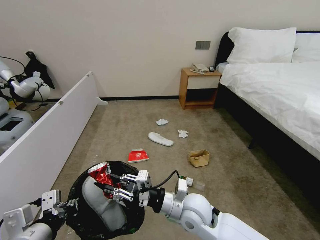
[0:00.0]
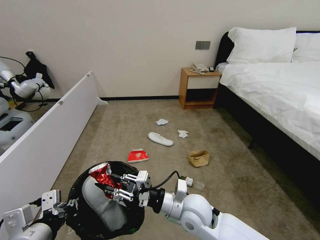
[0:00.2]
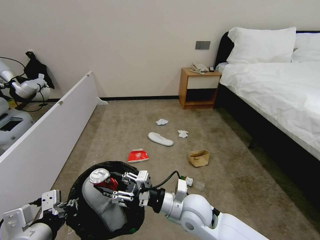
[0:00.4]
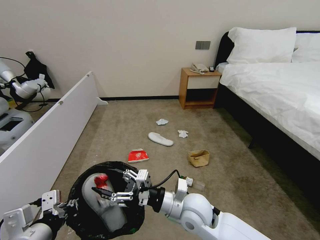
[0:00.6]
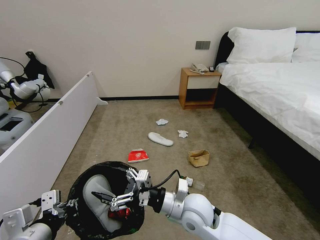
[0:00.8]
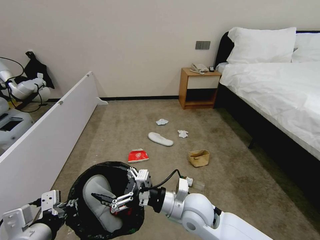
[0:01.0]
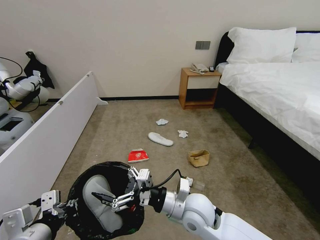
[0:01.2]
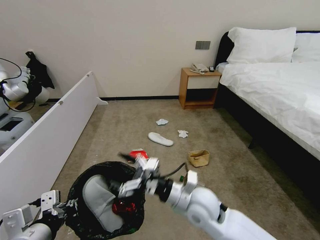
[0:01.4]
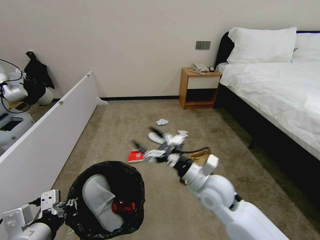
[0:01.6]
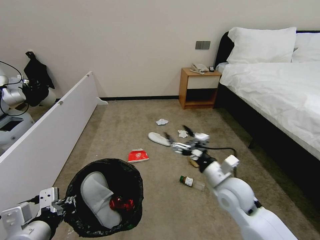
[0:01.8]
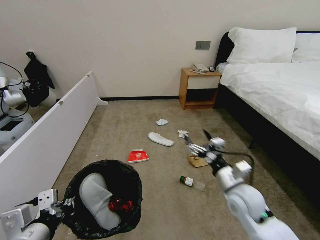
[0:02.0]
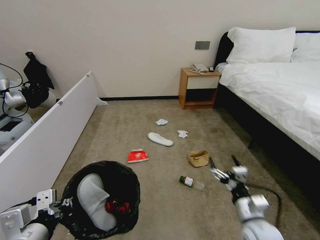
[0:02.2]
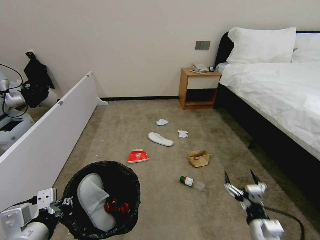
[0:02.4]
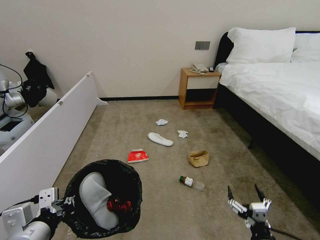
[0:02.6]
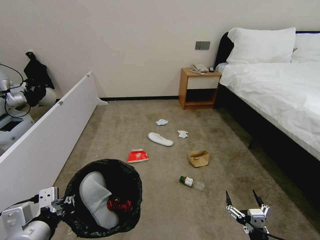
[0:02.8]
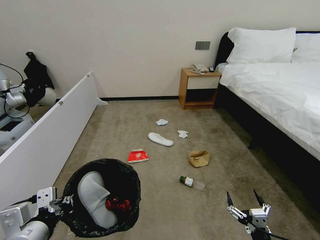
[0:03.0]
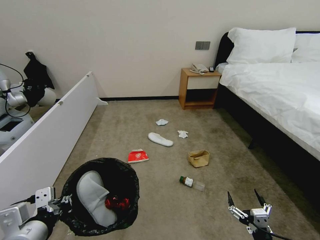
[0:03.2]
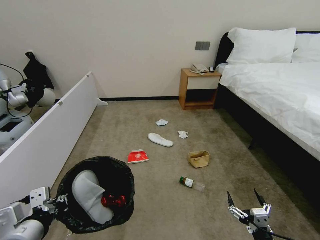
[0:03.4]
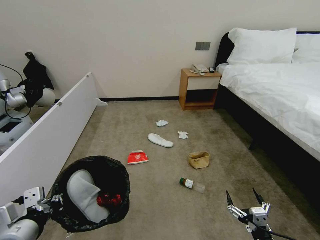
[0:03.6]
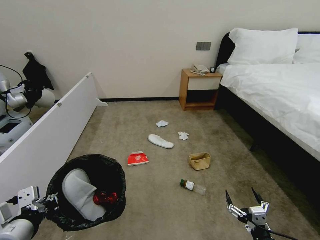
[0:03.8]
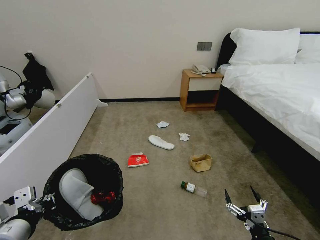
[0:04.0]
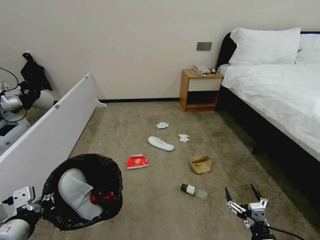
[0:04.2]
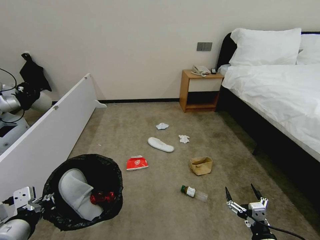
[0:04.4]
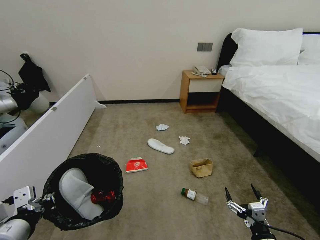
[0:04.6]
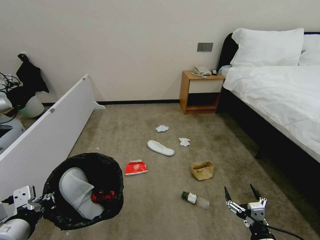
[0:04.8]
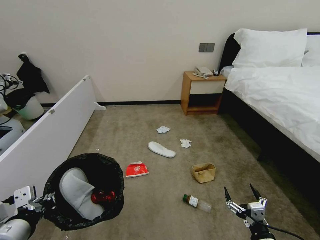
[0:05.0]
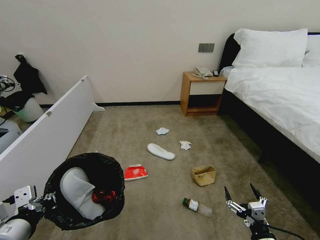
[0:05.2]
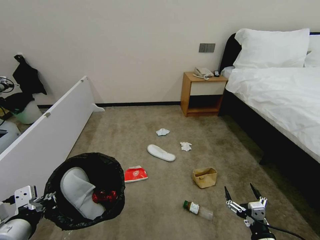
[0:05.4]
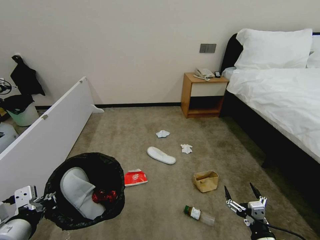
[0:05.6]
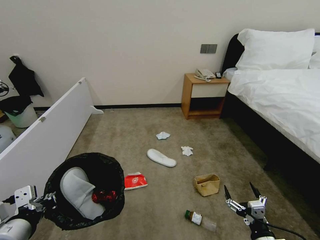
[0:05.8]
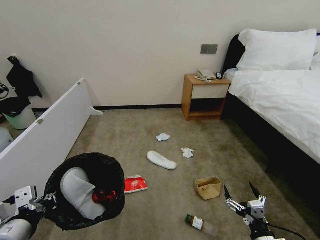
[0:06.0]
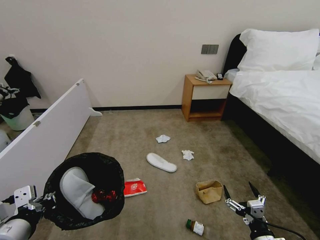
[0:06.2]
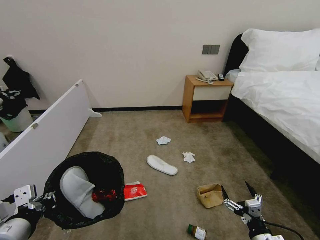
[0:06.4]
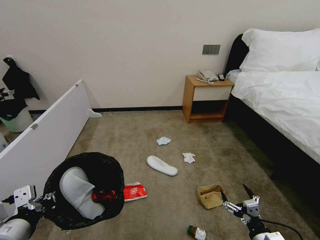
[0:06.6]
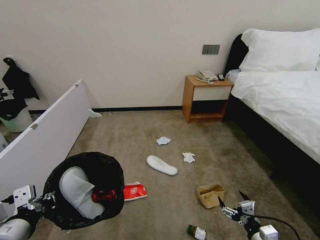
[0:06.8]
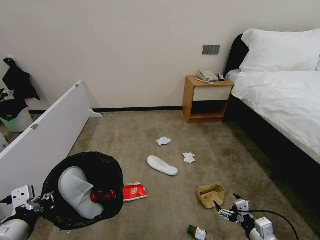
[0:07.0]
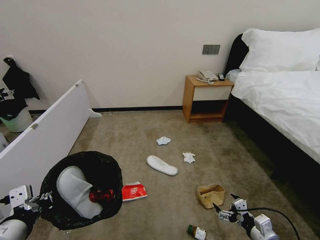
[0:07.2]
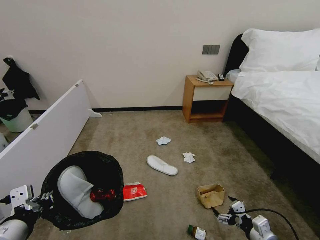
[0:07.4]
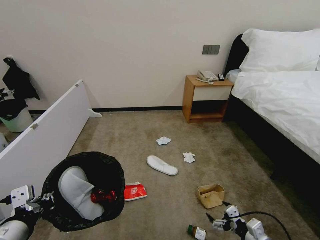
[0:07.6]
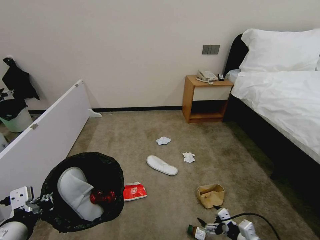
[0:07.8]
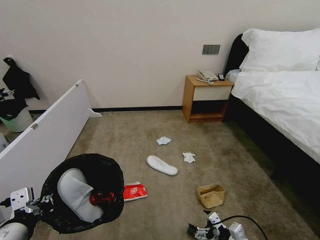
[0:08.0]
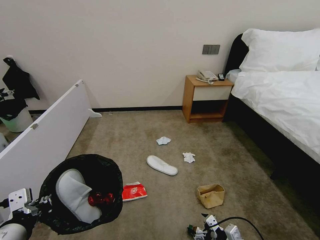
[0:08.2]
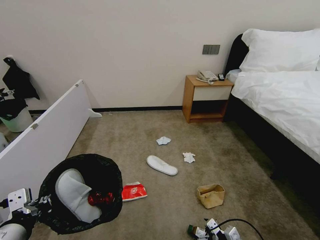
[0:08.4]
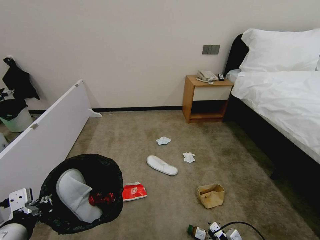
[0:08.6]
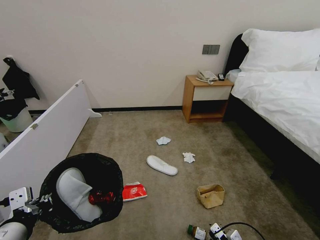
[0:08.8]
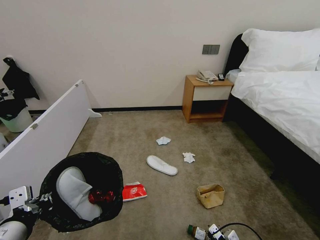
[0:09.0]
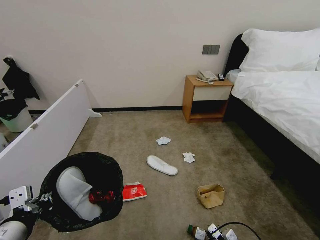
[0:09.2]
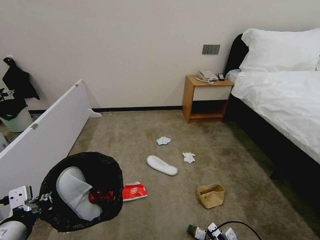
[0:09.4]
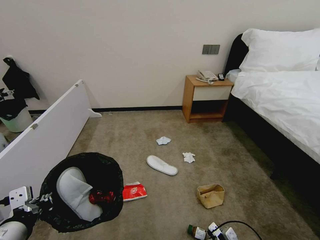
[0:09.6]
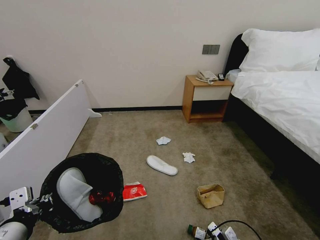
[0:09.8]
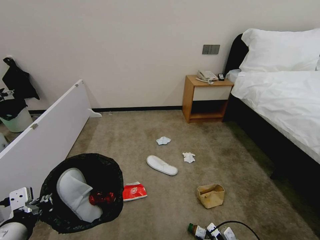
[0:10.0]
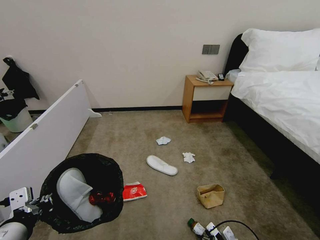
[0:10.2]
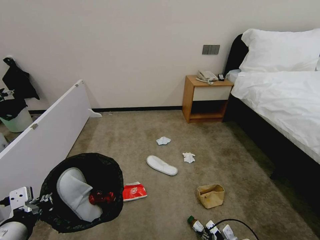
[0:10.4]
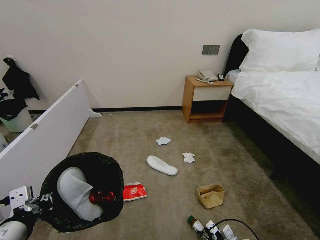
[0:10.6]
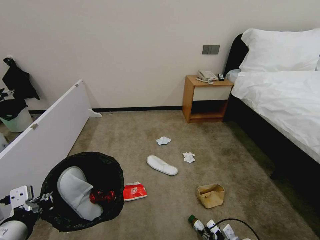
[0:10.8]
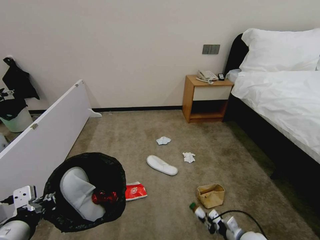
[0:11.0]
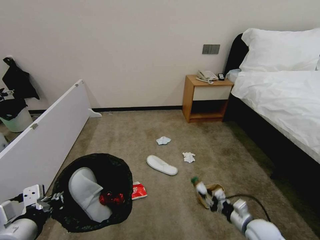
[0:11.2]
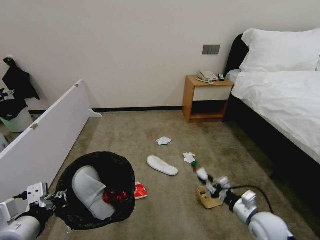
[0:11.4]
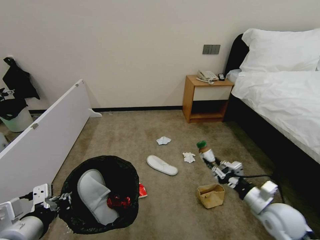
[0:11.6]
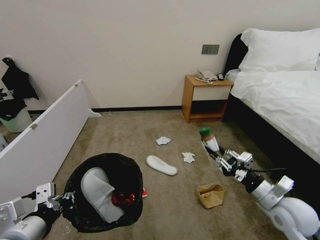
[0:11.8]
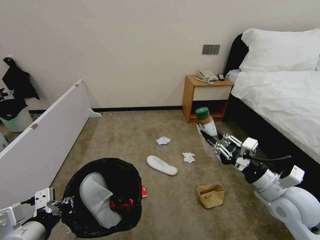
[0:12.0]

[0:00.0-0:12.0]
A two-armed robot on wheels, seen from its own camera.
Task of the whole recording: Pick up the trash bin, then pick up the garbage from the floor and place it into the trash bin.
0:00.0 to 0:01.6: The right gripper is displaced to the right by some 5 cm, and opens its fingers.
0:01.6 to 0:03.0: The right gripper moves backward, downward and to the right, approximately 30 cm.
0:03.0 to 0:04.4: The grippers move only a little.
0:04.4 to 0:06.0: Both grippers stay put.
0:06.0 to 0:07.6: The right gripper changes place by about 5 cm.
0:07.6 to 0:09.0: The right gripper goes some 10 cm downward.
0:09.0 to 0:10.4: The right gripper shifts by approximately 5 cm, and closes.
0:10.4 to 0:12.0: The right gripper travels upward by some 30 cm.

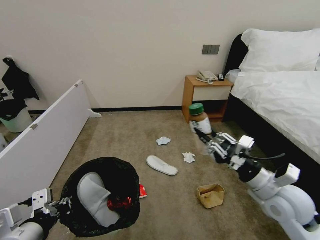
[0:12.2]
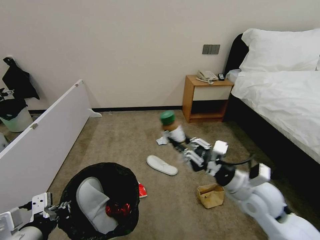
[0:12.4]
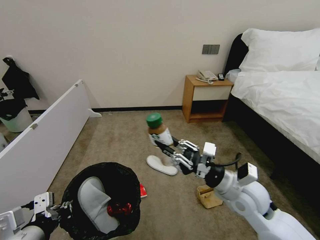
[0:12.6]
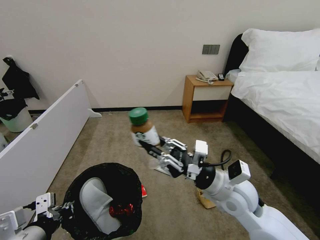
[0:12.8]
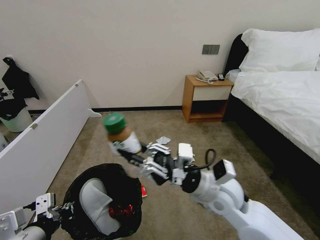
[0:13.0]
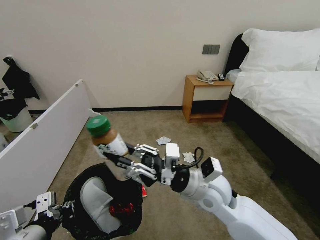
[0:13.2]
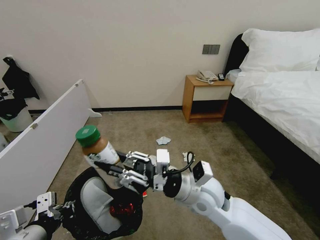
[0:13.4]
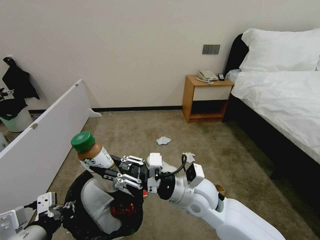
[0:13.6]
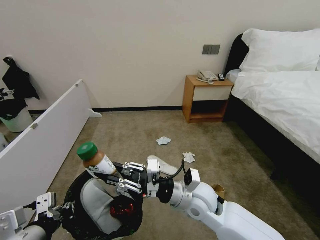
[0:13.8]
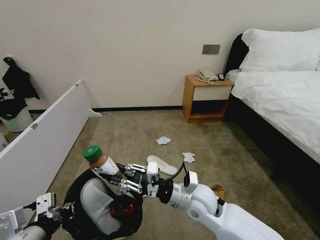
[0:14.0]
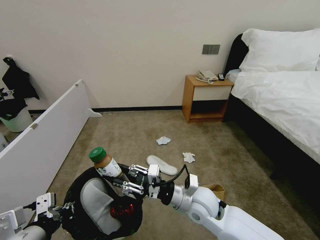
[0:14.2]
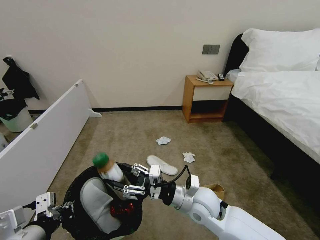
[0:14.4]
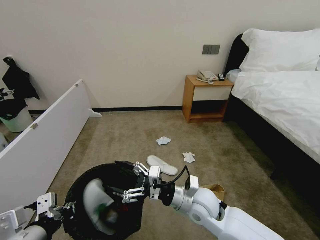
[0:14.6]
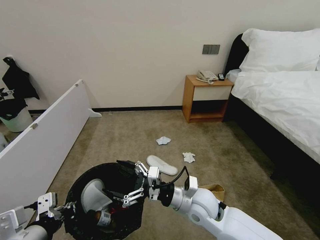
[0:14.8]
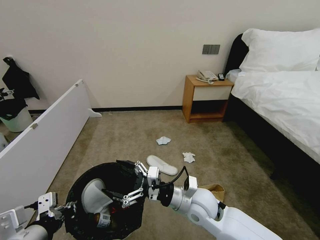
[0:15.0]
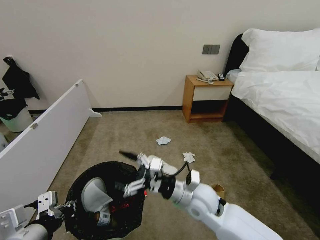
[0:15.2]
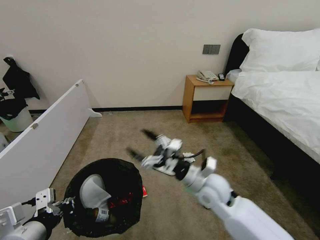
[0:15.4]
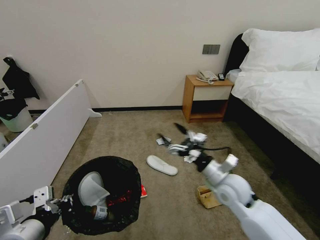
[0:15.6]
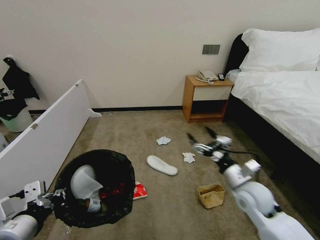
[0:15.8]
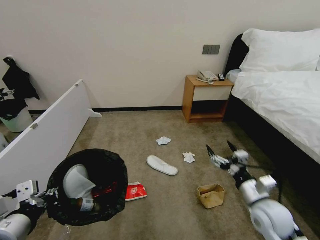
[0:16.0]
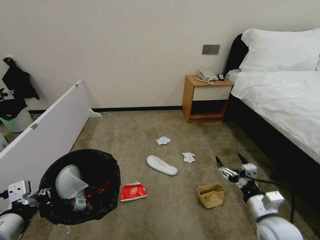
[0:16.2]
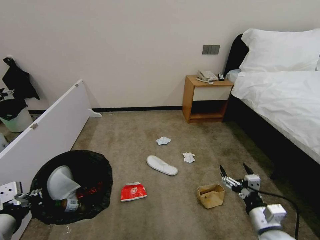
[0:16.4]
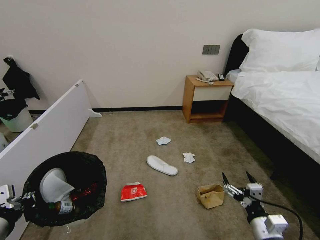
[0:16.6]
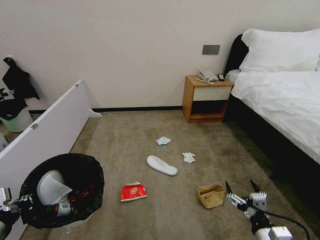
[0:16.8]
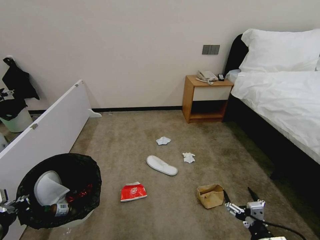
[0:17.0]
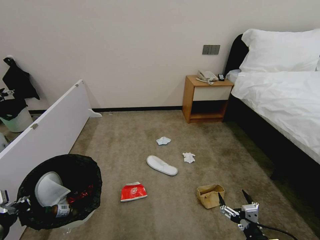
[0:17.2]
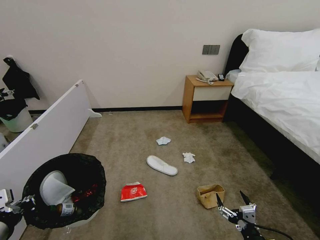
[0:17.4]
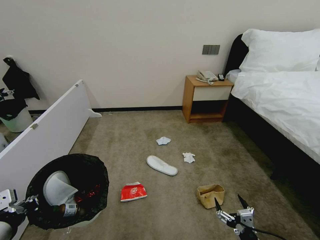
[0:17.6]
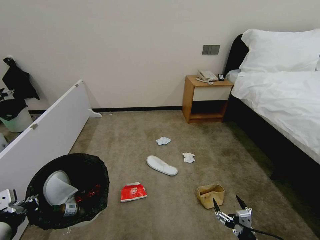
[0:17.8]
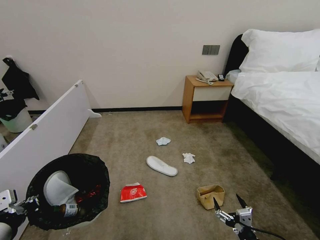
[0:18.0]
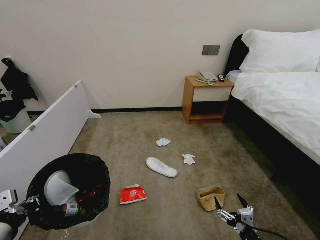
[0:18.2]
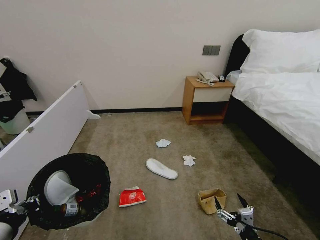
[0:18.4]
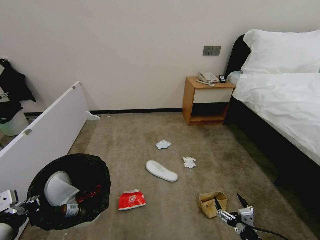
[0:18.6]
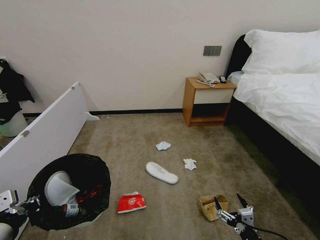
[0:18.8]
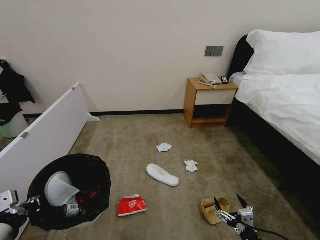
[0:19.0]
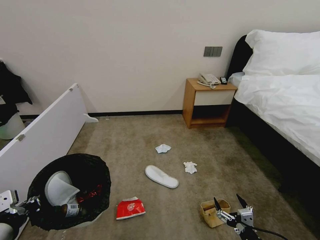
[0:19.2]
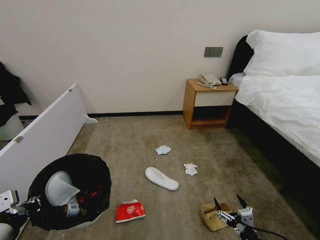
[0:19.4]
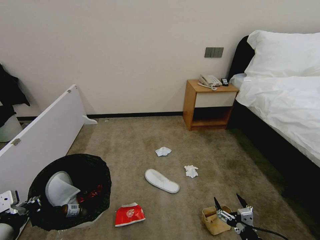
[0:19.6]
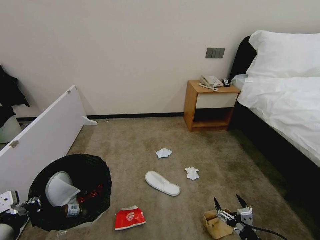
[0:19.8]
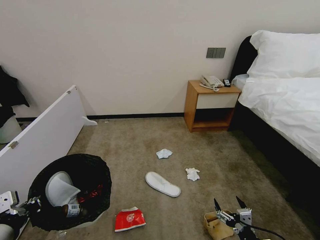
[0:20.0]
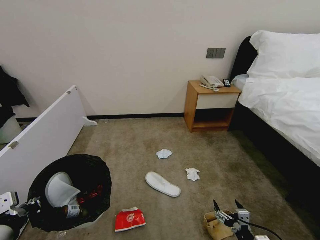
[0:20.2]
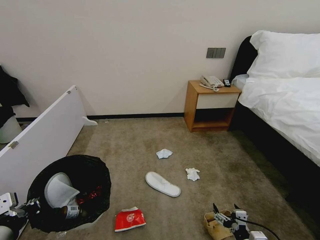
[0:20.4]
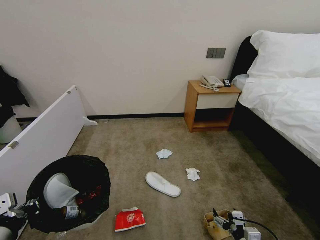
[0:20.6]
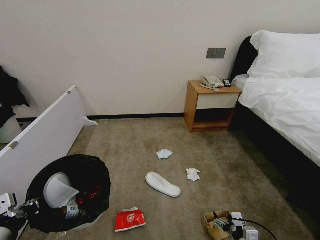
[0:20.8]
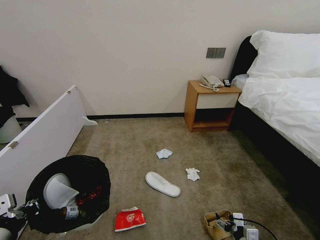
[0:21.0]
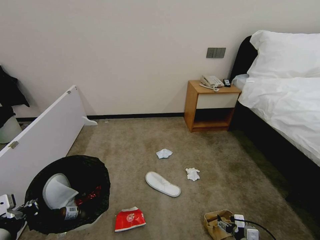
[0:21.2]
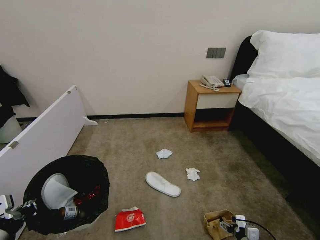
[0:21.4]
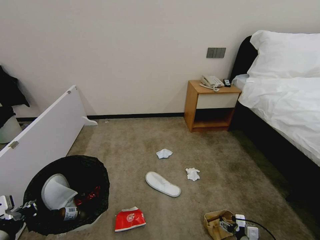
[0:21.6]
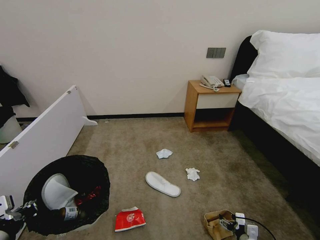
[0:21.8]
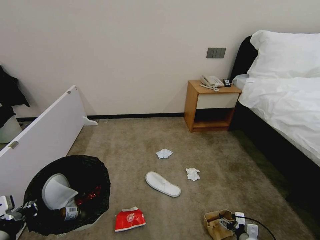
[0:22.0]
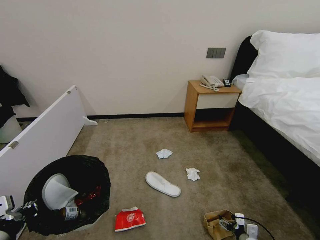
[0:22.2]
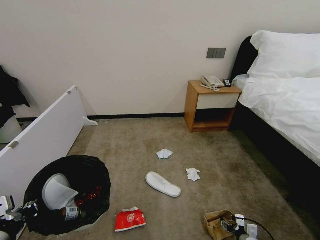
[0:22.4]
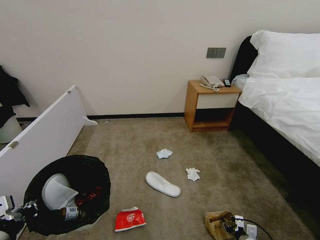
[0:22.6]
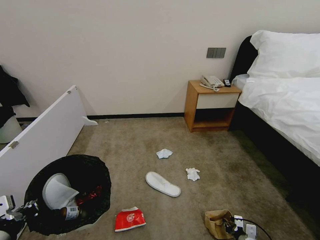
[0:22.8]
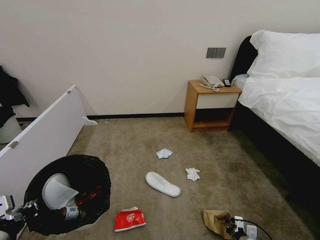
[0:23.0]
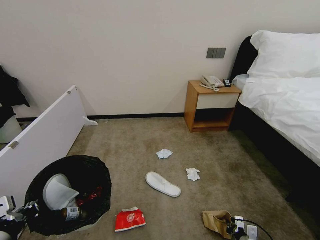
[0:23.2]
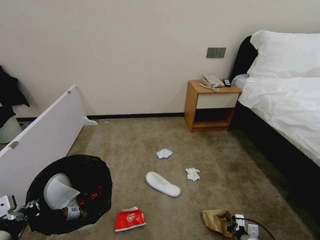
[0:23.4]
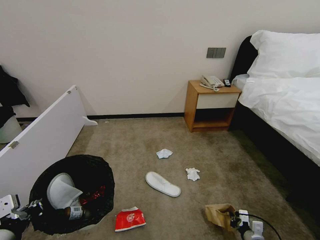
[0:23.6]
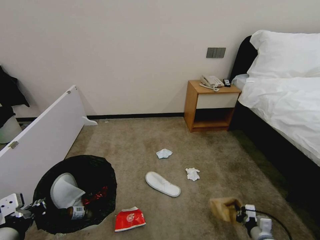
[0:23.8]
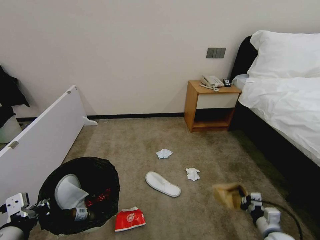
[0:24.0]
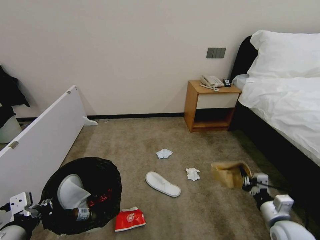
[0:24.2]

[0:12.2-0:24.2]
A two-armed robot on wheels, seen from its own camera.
Task of the whole recording: Pick up the trash bin, then pick up the garbage from the floor and place it into the trash bin.
0:12.2 to 0:13.8: The right gripper moves to the left, some 20 cm.
0:13.8 to 0:15.2: The right gripper opens up.
0:15.2 to 0:16.6: The left gripper travels to the left by about 5 cm, while the right gripper shifts roughly 25 cm to the right, backward and downward.
0:16.6 to 0:18.2: The right gripper travels downward by about 5 cm.
0:18.2 to 0:19.8: Both grippers stay put.
0:19.8 to 0:21.2: The right gripper shifts approximately 10 cm downward and forward.
0:21.2 to 0:22.6: The right gripper moves downward, approximately 5 cm, and closes its fingers.
0:22.6 to 0:24.2: The right gripper goes some 20 cm upward, and closes.
